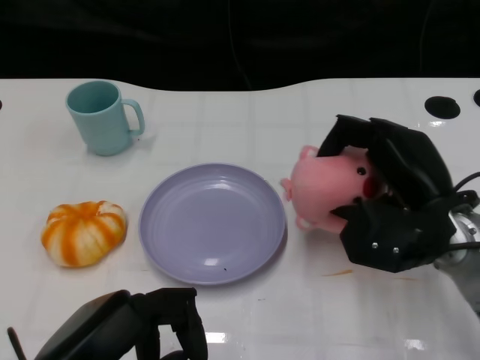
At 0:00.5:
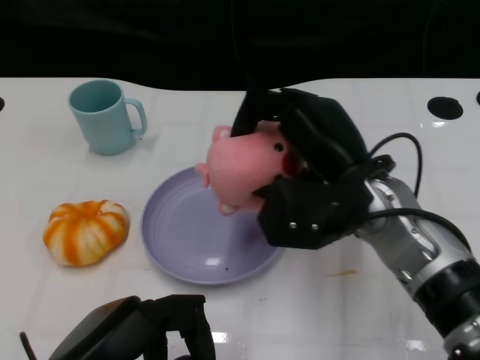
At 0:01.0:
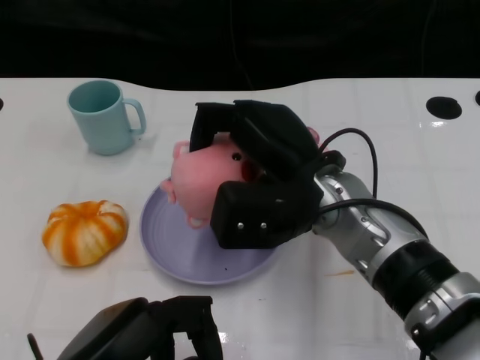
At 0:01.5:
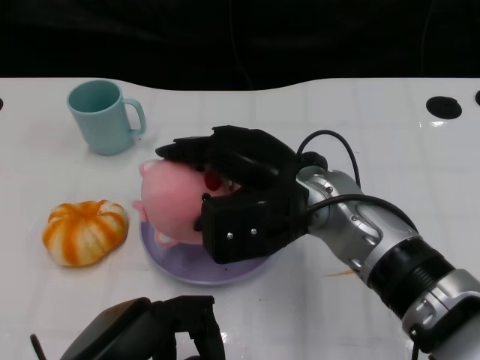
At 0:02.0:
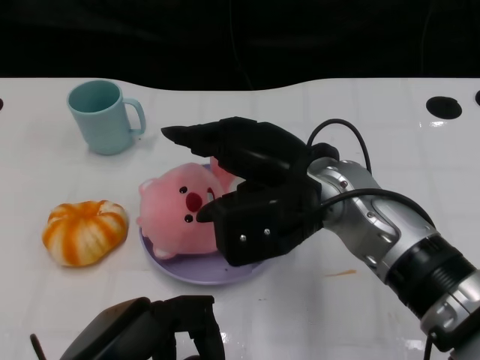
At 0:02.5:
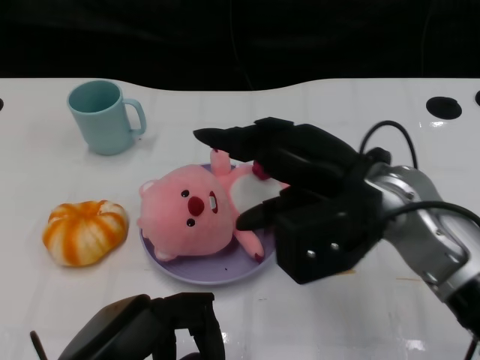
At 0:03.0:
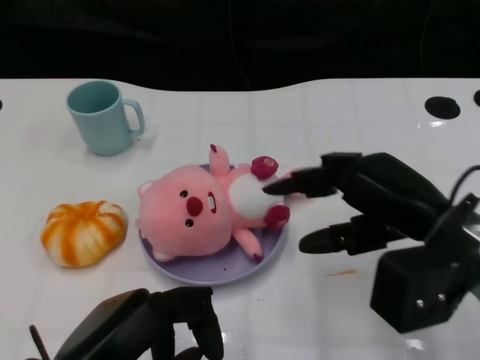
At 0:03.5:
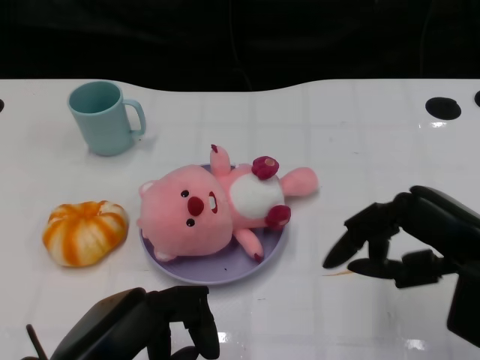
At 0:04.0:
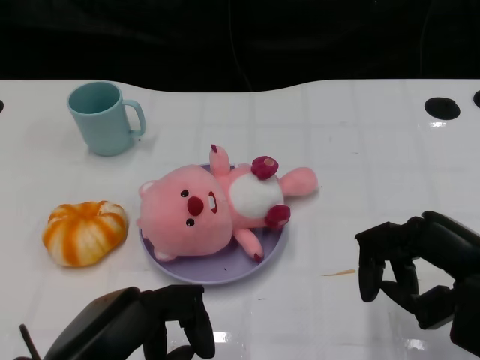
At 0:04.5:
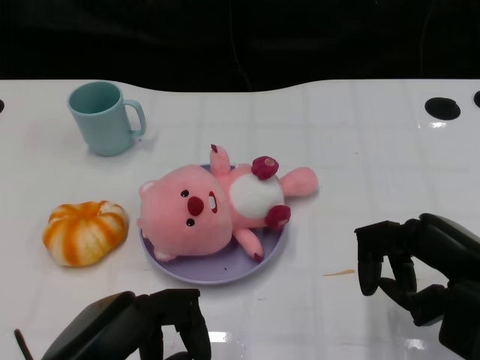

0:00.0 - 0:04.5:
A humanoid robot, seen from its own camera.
Task of the whole recording: Pick up the doll on the other side of the plate and place it into the plate.
Step, 0:00.5 - 0:02.5: Place the pink doll into the plate with the right gripper.
0:00.0 - 0:02.0: The right hand is displaced to the left and upward by about 15 cm.
0:02.0 - 0:04.5: The right hand shifts about 20 cm to the right and backward.

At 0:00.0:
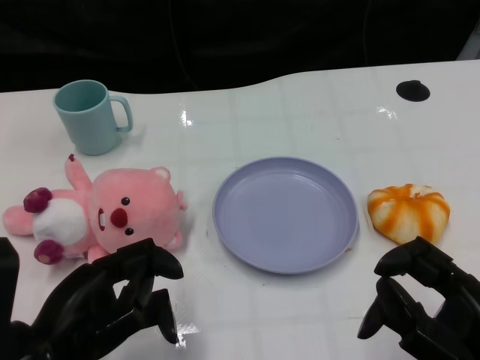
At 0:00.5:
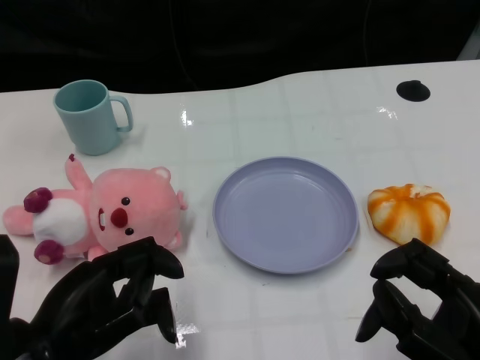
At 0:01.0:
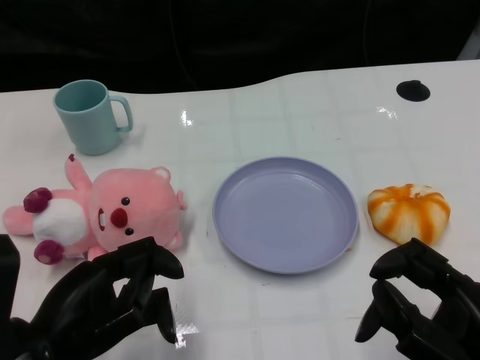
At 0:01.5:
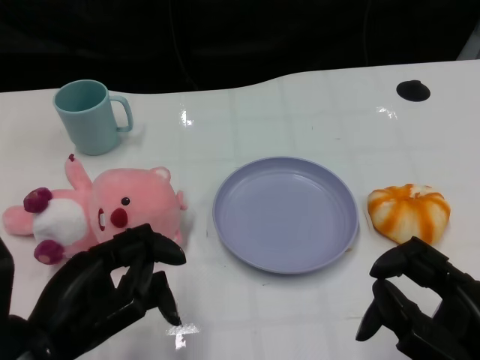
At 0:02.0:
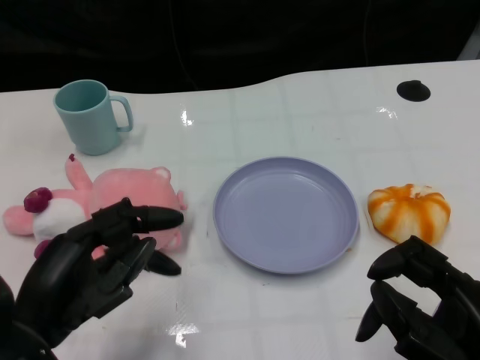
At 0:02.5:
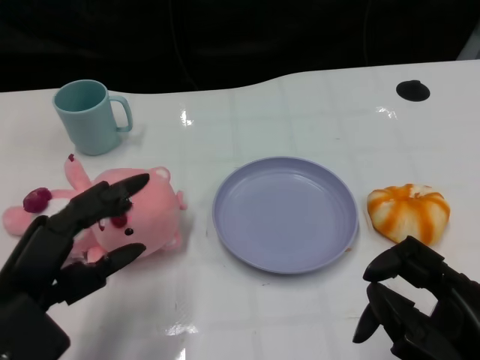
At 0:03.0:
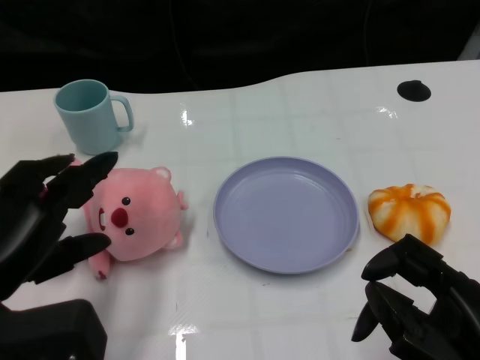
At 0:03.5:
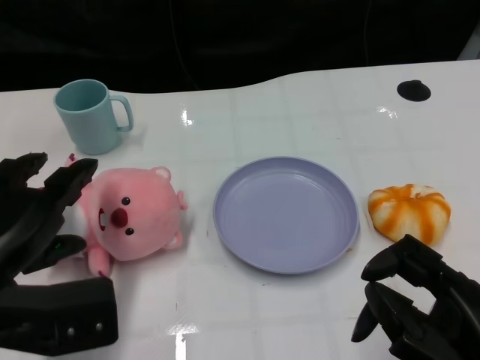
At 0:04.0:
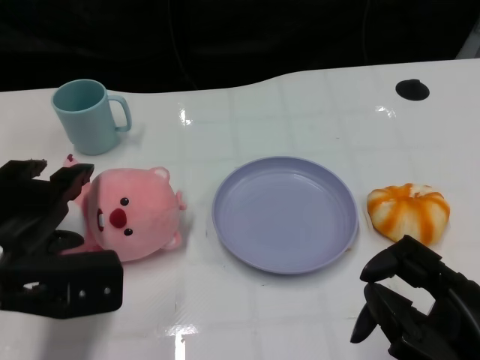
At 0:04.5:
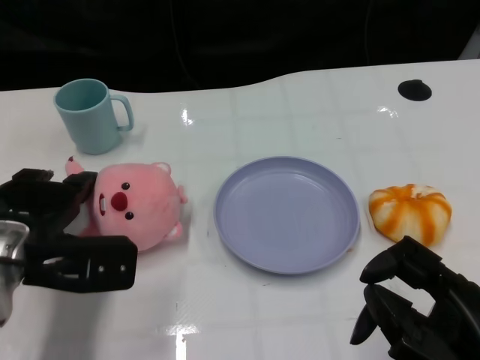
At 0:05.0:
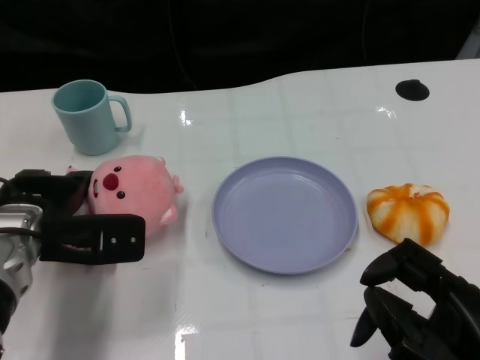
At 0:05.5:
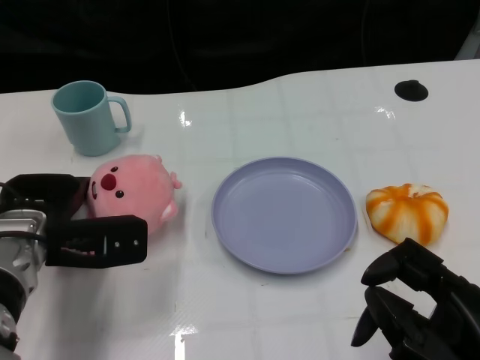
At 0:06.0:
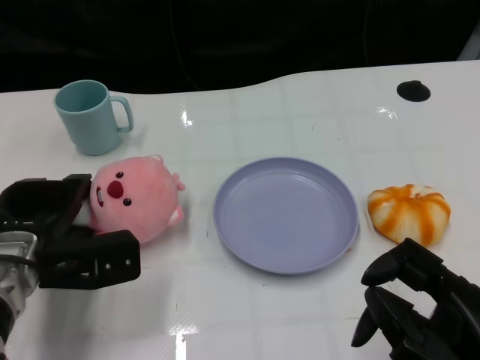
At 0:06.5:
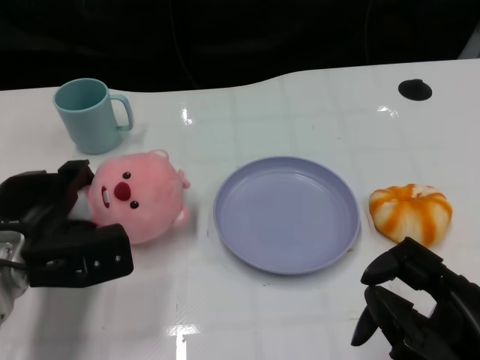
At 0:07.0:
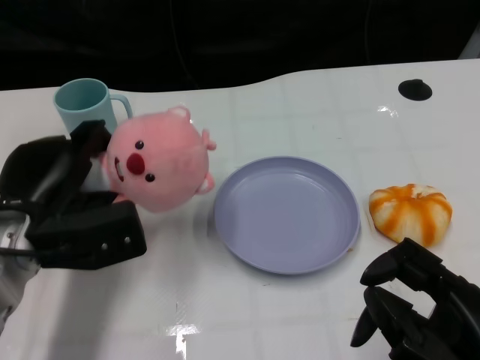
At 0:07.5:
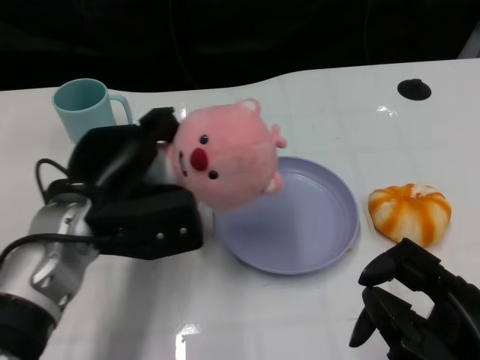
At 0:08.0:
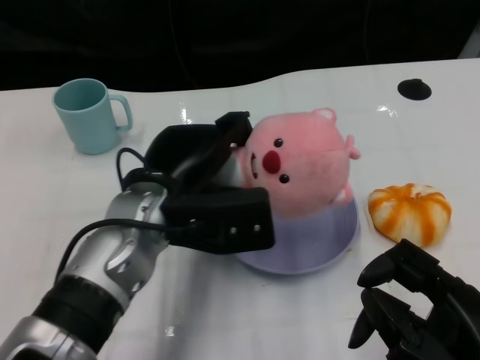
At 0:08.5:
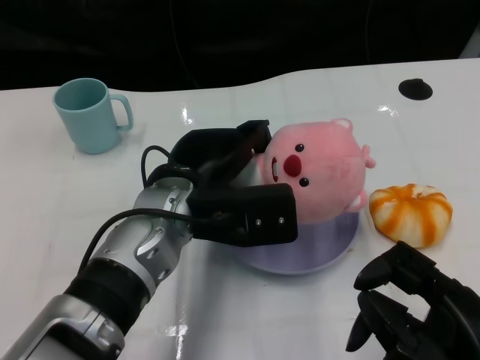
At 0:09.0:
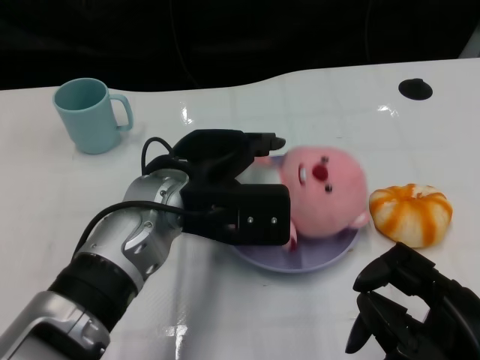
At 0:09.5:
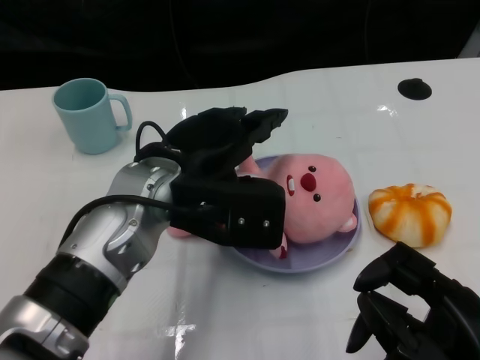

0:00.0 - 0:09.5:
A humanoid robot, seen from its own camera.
Task of the whole recording: Pick up the doll on one side of the plate and place it into the plate.
Step, 0:01.5 - 0:06.5: Grasp the pink doll with the left gripper.
Step, 0:07.0 - 0:09.0: Place the pink doll into the plate with the left gripper.
0:02.0 - 0:04.0: The left hand heads forward, covering some 5 cm.
0:04.0 - 0:05.5: The left hand is displaced forward by roughly 5 cm.
0:05.5 - 0:07.5: The left hand is displaced to the right by roughly 5 cm.
0:07.5 - 0:09.5: The left hand shifts roughly 10 cm to the right.

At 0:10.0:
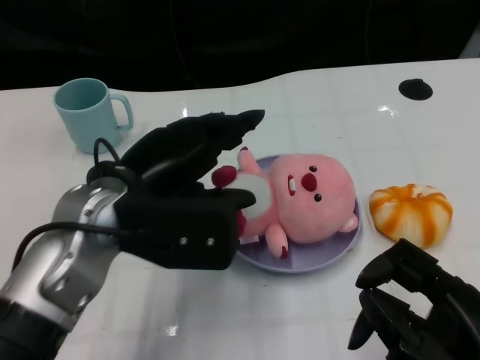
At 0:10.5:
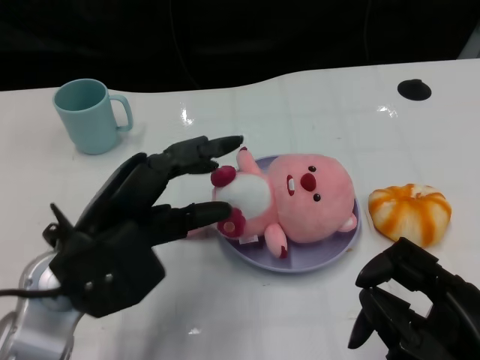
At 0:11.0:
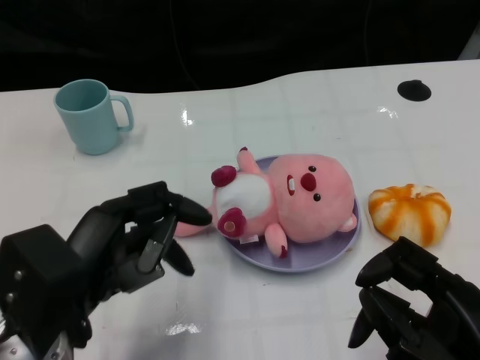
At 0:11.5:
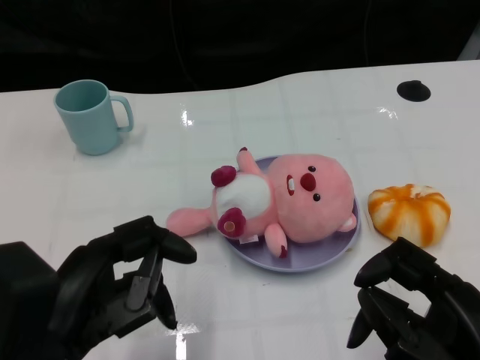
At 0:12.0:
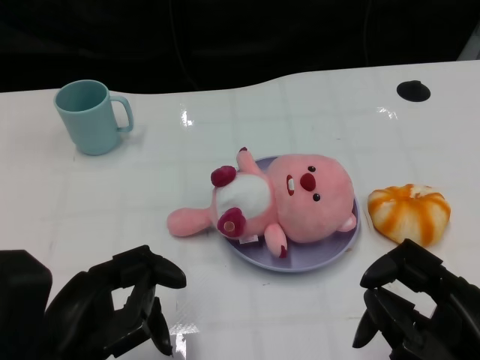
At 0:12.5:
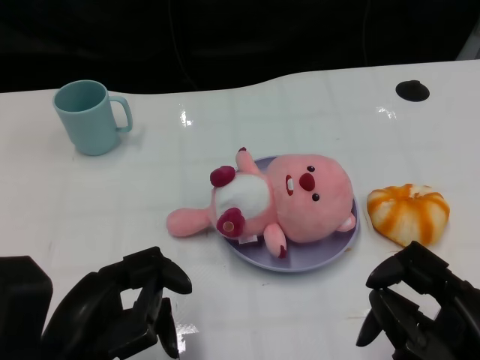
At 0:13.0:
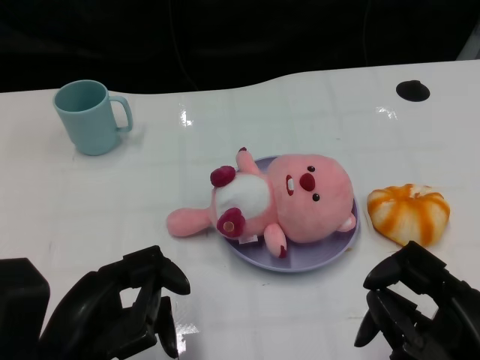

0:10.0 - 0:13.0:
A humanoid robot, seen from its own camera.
Task of the whole recording: Pick up the doll on one side of the plate and place it into the plate.
0:10.0 - 0:11.5: The left hand travels backward and to the left by about 15 cm.
0:11.5 - 0:13.0: The hands make only small movements.

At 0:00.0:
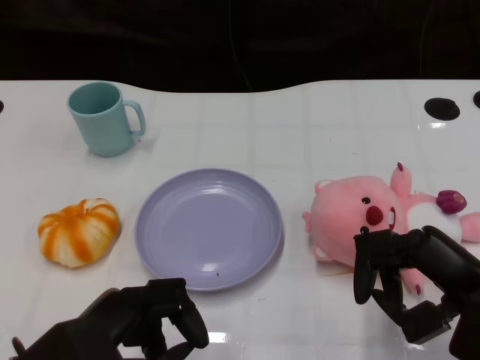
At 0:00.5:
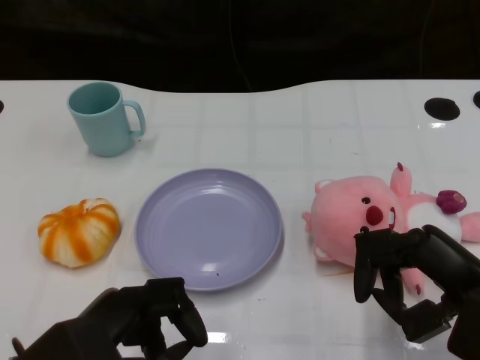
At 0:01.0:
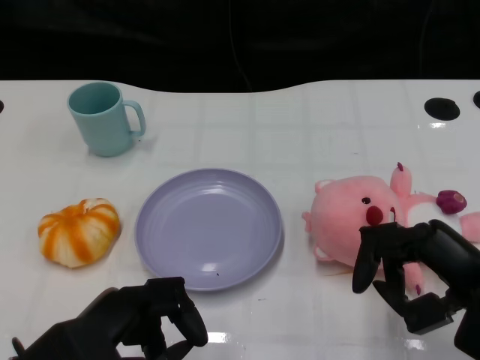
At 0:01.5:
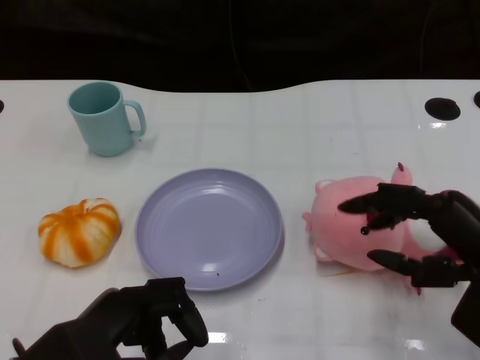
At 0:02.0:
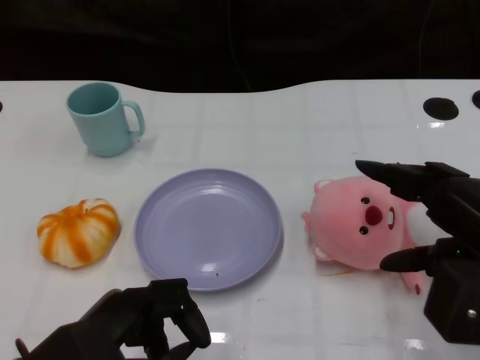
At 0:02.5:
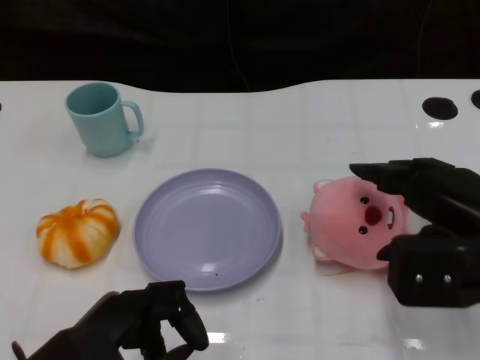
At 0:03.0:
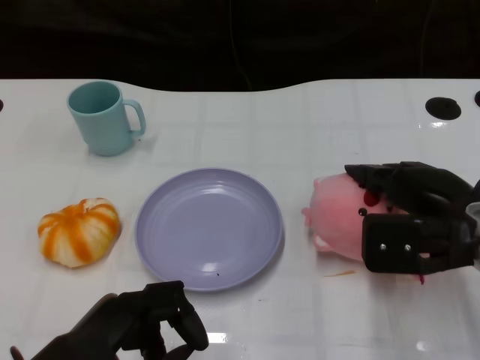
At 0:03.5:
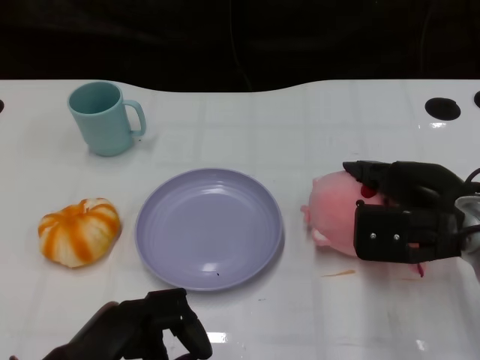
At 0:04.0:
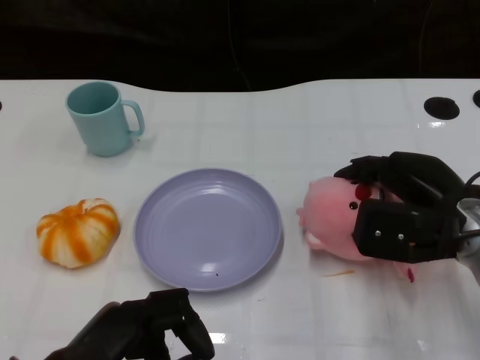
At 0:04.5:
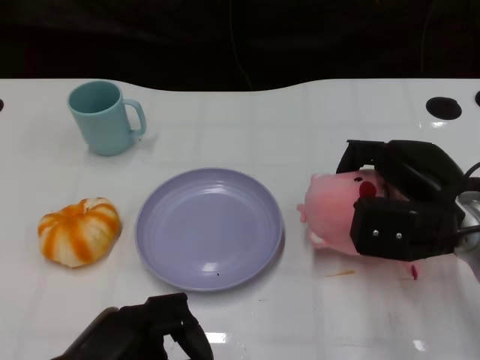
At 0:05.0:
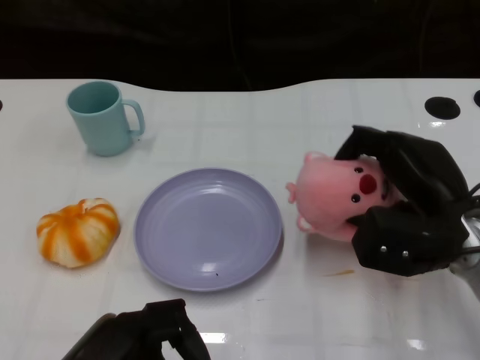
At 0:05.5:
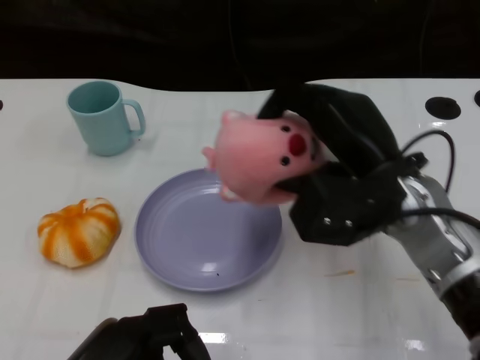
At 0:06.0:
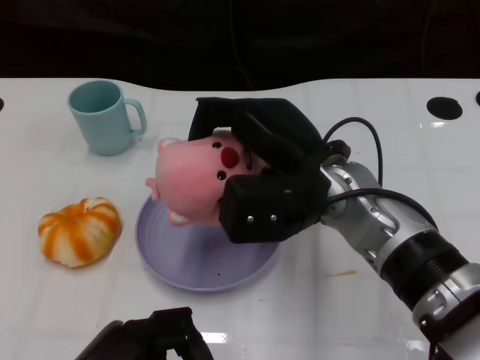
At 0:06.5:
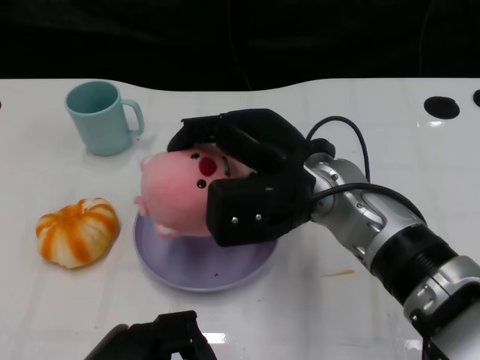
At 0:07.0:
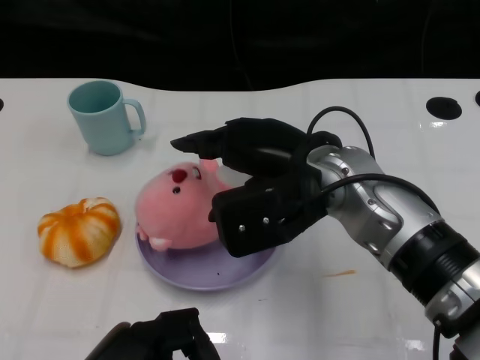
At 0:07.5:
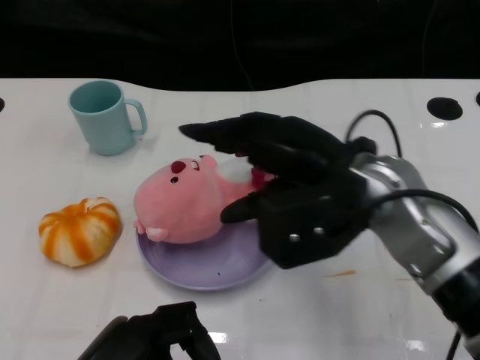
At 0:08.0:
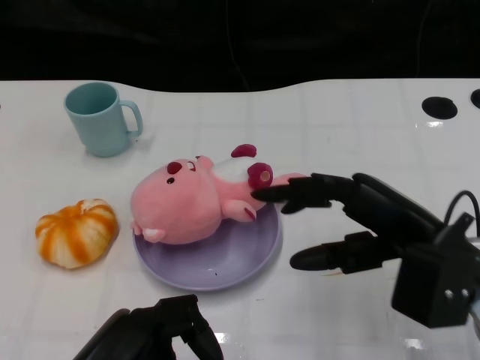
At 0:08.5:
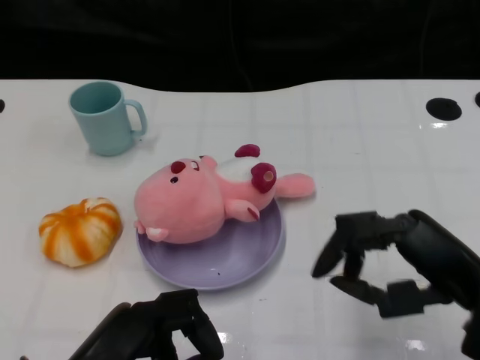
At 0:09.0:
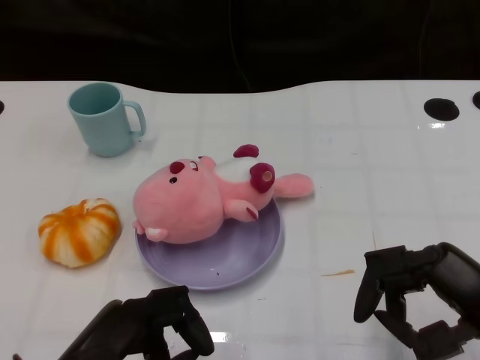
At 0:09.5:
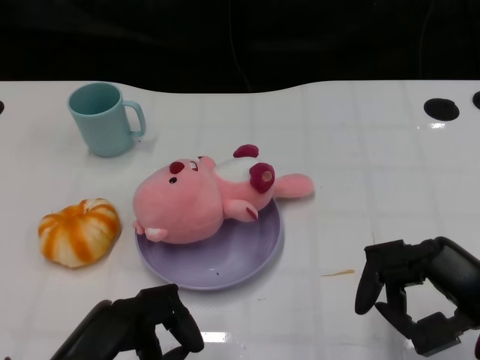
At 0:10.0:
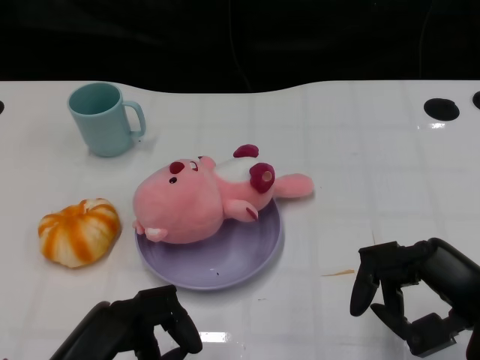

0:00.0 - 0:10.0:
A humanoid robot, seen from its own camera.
Task of the whole recording: Pick up the doll on the other side of the plate and place it into the plate.
Step, 0:01.0 - 0:05.5: Grasp the pink doll with the right gripper.
Step, 0:06.0 - 0:07.0: Place the pink doll into the plate with the right gripper.
0:02.0 - 0:04.0: The right hand heads forward and downward, covering roughly 10 cm.
0:04.0 - 0:06.0: The right hand is displaced to the left by some 15 cm.
0:06.0 - 0:08.0: The right hand shifts roughly 15 cm to the right and backward.
0:08.0 - 0:10.0: The right hand heads backward and to the right, covering approximately 10 cm.
